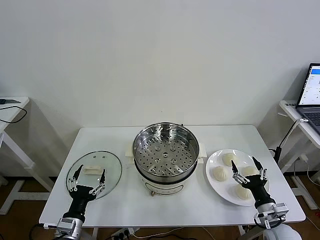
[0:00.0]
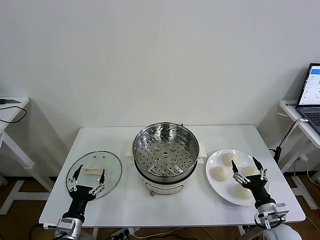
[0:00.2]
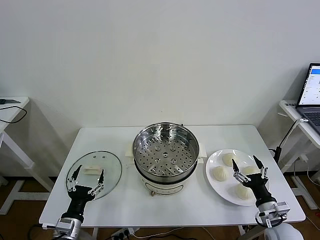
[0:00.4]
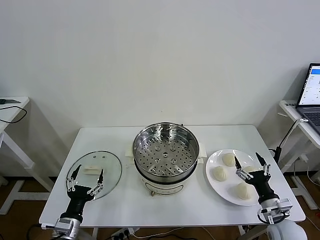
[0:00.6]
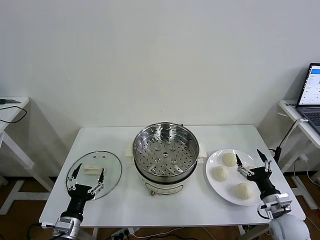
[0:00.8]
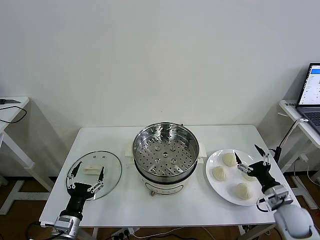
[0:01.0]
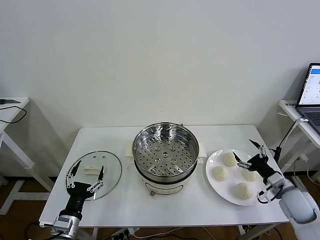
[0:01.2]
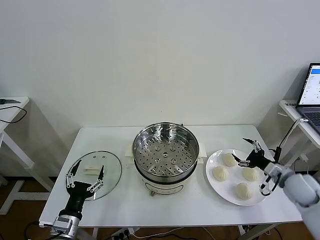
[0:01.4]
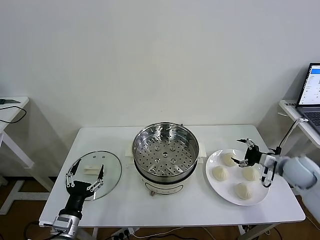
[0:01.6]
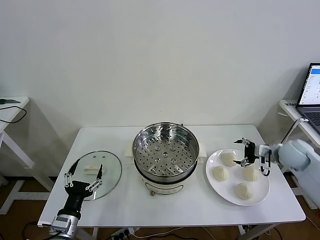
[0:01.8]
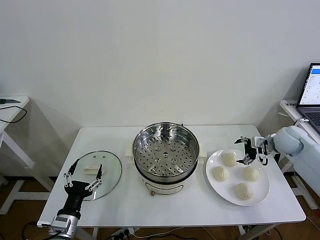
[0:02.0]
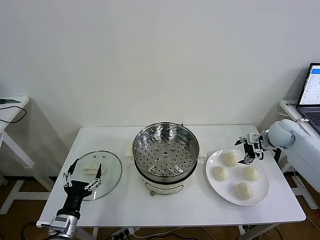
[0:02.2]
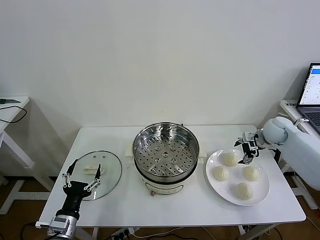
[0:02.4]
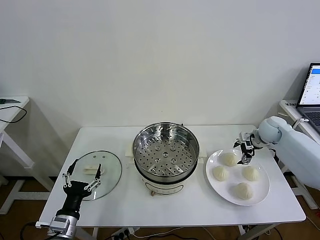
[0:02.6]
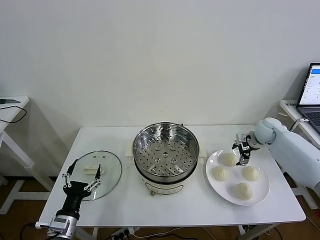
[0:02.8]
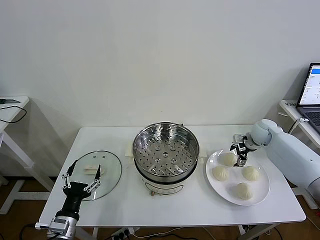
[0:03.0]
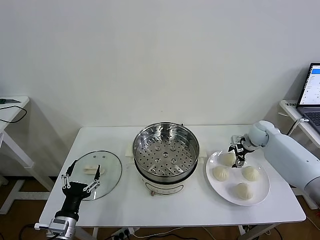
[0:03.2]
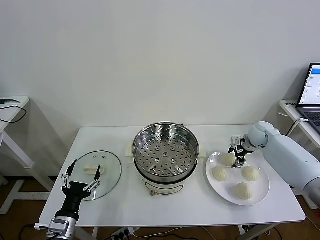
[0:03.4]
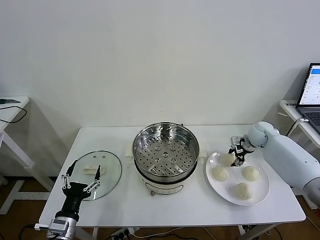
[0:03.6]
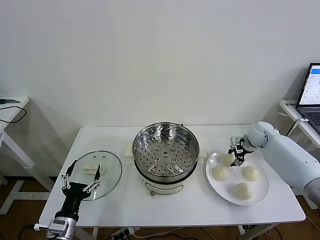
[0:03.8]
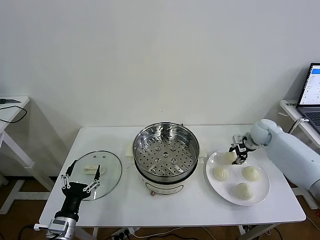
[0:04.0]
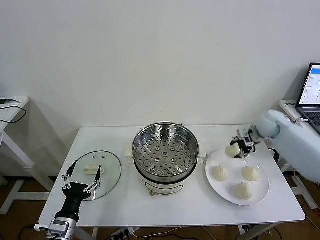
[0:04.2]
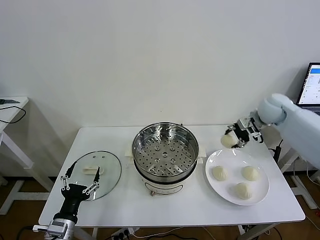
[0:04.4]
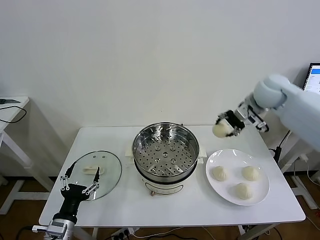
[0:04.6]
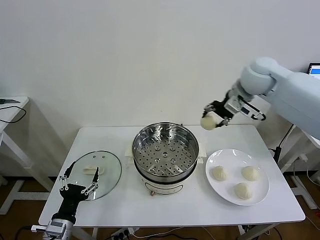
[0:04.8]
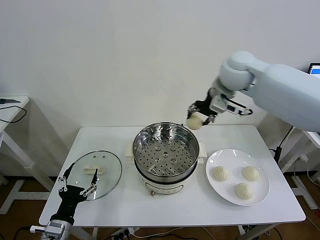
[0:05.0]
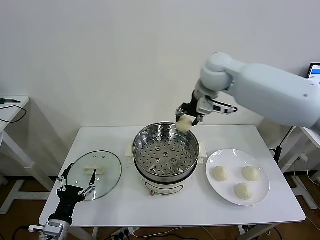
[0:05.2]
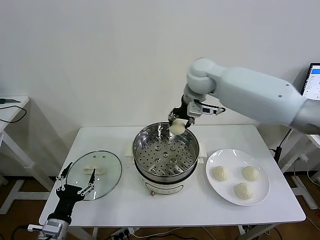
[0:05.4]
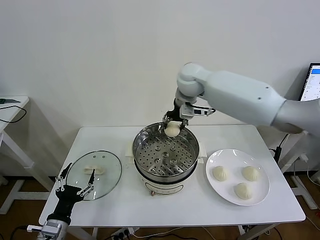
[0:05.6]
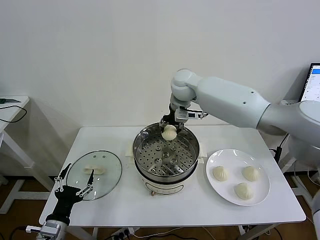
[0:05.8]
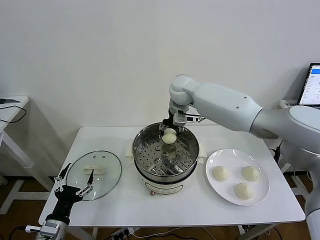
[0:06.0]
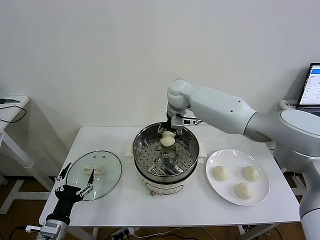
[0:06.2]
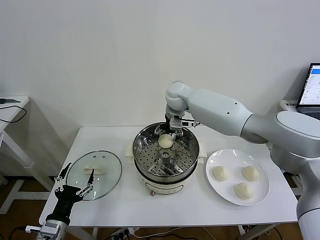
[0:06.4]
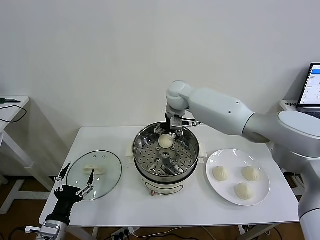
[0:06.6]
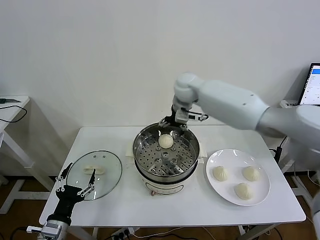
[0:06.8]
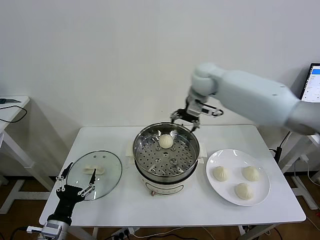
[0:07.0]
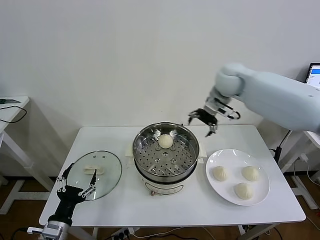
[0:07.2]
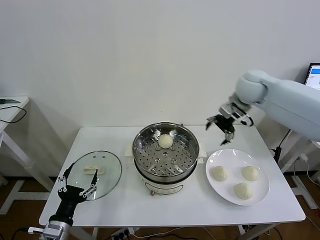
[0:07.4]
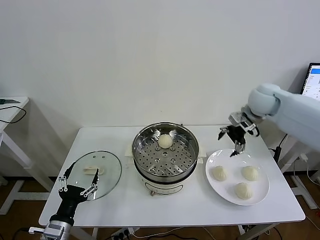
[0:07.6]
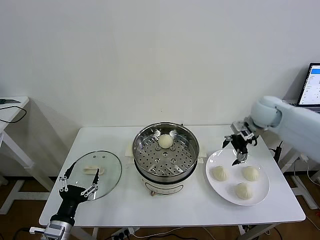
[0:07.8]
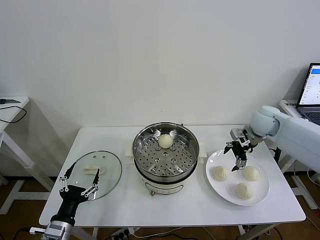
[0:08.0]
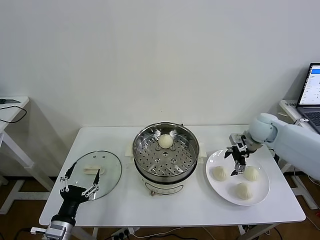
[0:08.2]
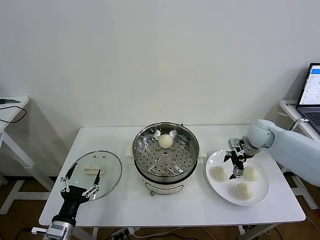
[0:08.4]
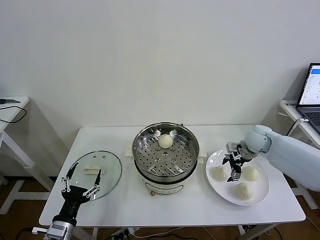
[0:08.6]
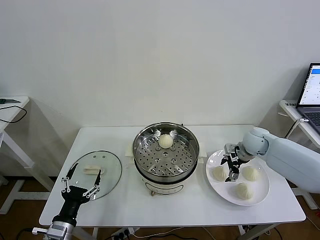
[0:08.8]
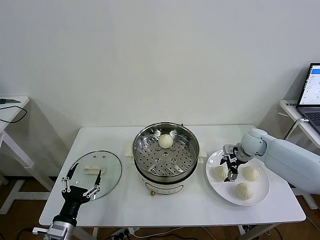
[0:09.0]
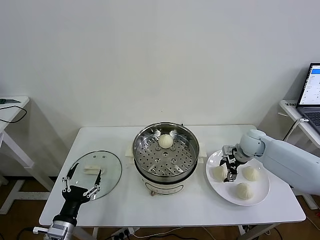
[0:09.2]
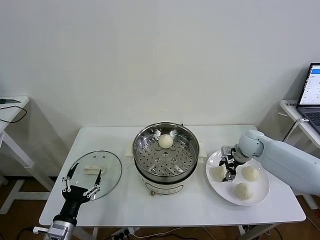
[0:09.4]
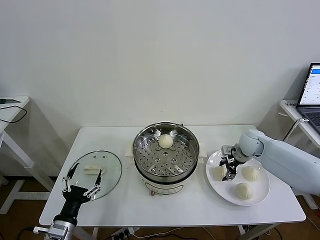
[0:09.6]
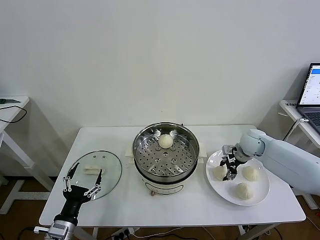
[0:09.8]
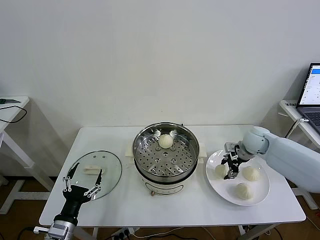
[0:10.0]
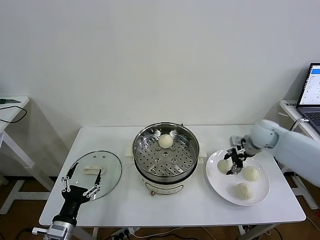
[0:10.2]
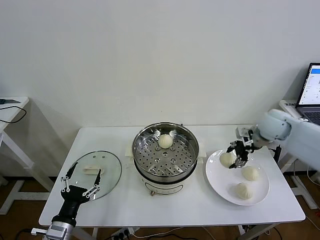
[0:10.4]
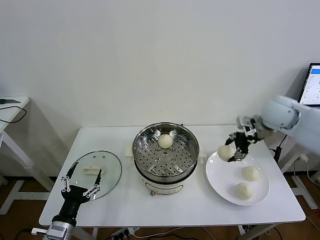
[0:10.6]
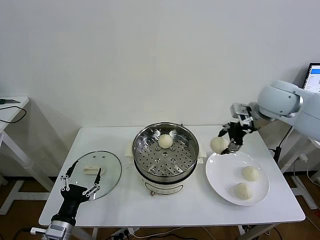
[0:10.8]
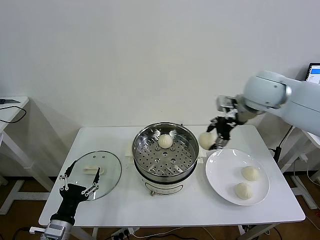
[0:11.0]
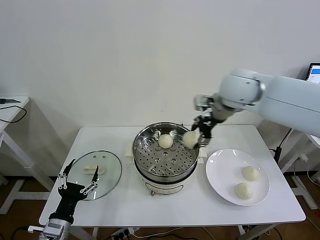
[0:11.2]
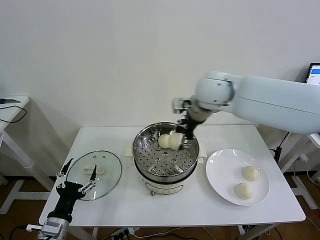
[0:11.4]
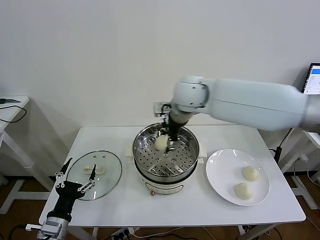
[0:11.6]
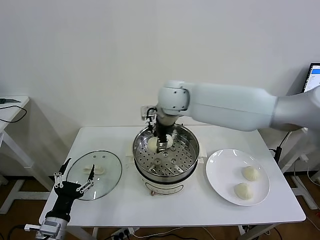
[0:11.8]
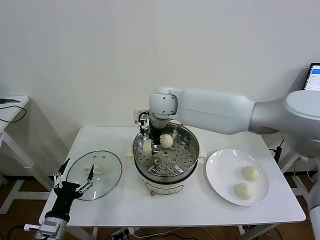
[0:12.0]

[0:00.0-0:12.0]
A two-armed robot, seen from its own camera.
Task of the whole recording: take steamed baozi put them in steamer then cover it.
Step, 0:00.0 to 0:03.6: Grasp the baozi in the plate with right gripper.
Step, 0:03.8 to 0:06.4: Place the baozi on the steamer with right gripper.
Step, 0:06.6 to 0:09.6: Grasp the baozi in the plate with right gripper.
0:01.6 to 0:03.0: The right gripper moves forward, about 15 cm.
0:03.0 to 0:04.4: The right gripper moves upward, about 20 cm, and closes its fingers.
0:04.4 to 0:06.0: The right gripper goes roughly 30 cm to the left.
0:06.0 to 0:07.6: The right gripper shifts approximately 25 cm to the right, and opens up.
0:07.6 to 0:09.0: The right gripper shifts some 15 cm downward.
0:09.0 to 0:10.4: The right gripper moves upward, approximately 15 cm, and closes its fingers.
0:10.4 to 0:12.0: The right gripper shifts about 35 cm to the left.

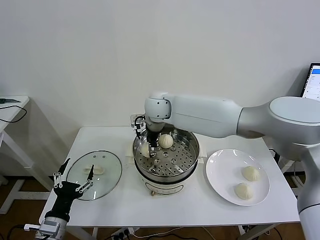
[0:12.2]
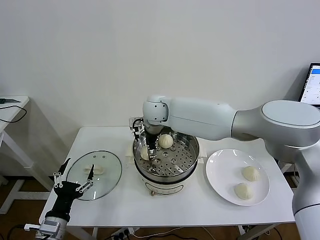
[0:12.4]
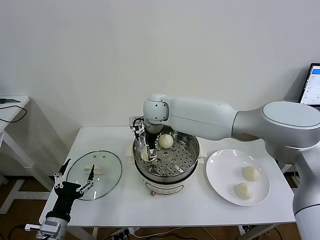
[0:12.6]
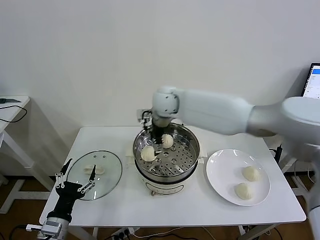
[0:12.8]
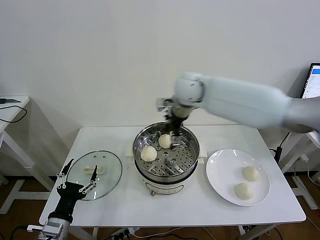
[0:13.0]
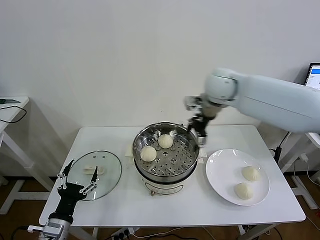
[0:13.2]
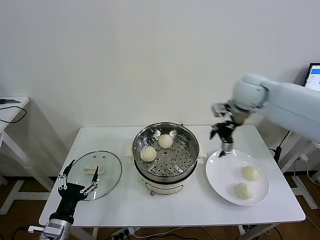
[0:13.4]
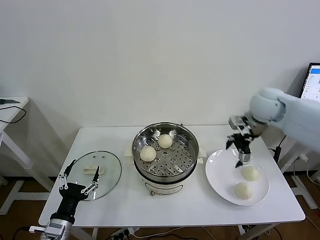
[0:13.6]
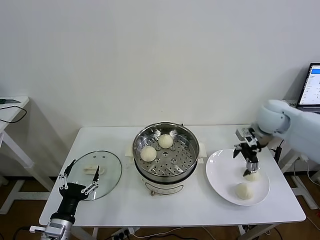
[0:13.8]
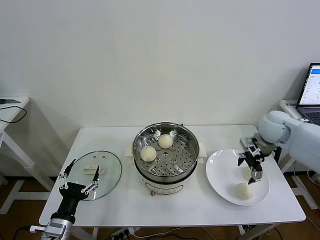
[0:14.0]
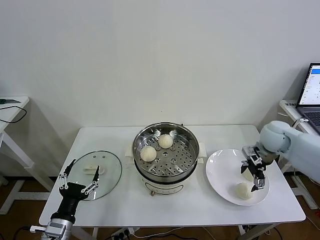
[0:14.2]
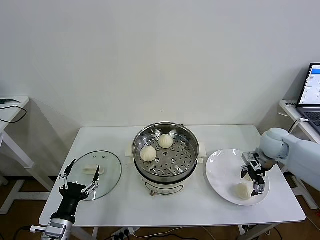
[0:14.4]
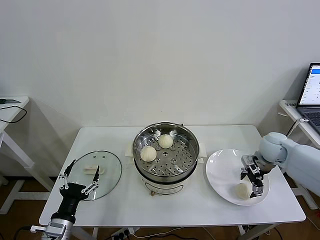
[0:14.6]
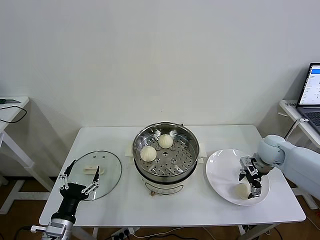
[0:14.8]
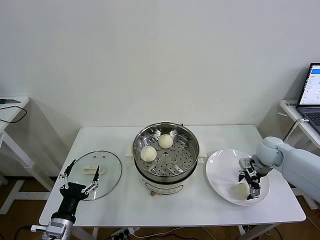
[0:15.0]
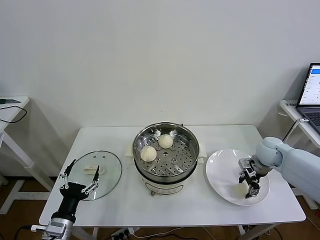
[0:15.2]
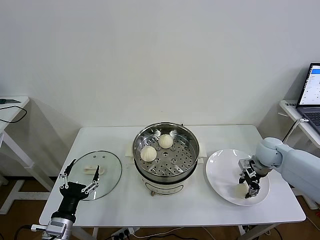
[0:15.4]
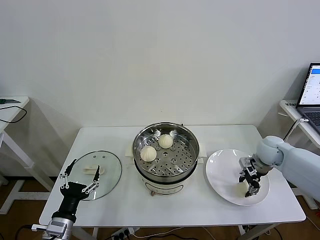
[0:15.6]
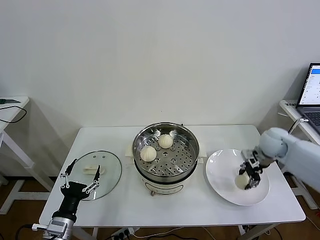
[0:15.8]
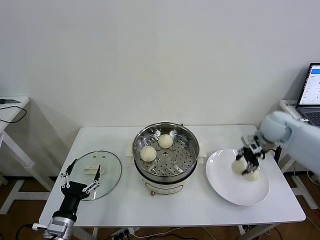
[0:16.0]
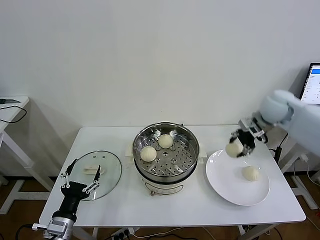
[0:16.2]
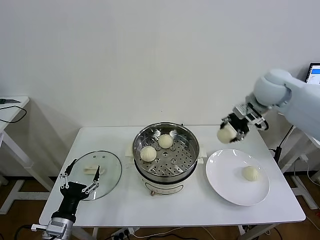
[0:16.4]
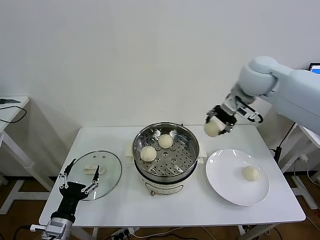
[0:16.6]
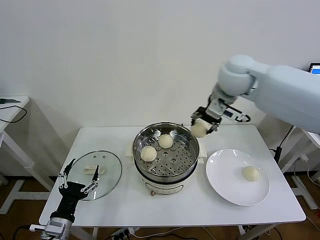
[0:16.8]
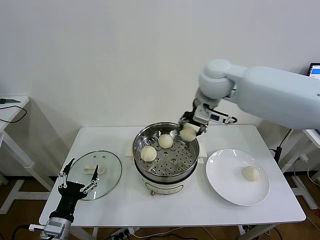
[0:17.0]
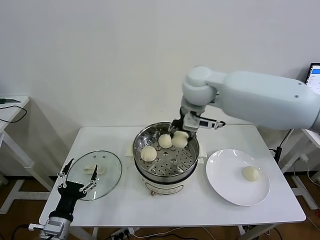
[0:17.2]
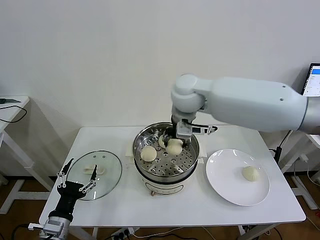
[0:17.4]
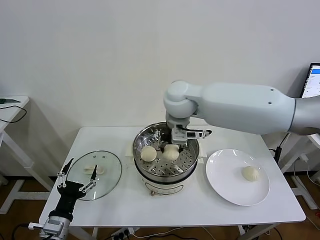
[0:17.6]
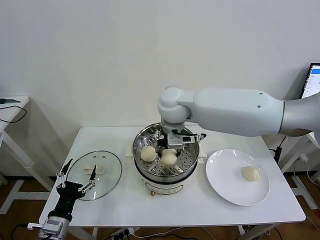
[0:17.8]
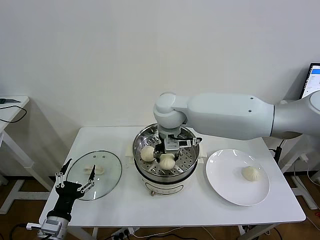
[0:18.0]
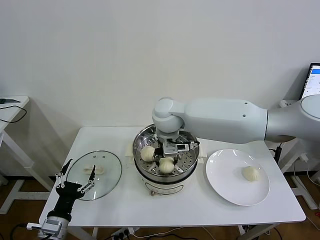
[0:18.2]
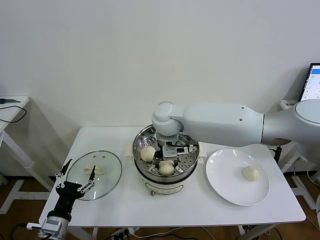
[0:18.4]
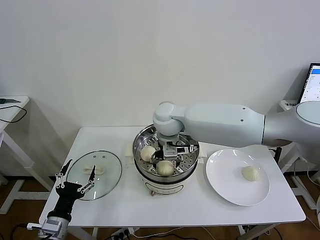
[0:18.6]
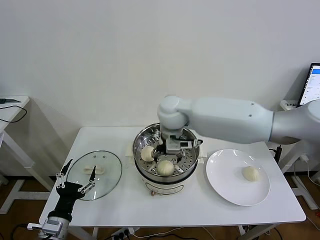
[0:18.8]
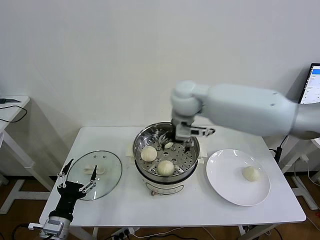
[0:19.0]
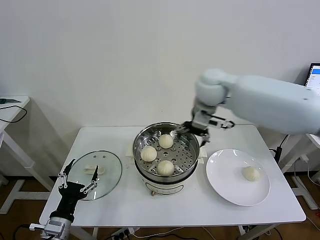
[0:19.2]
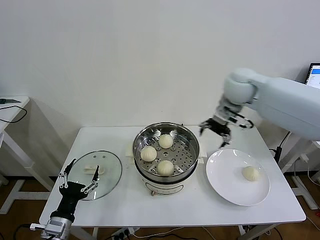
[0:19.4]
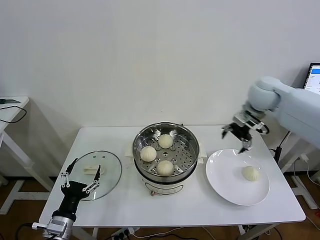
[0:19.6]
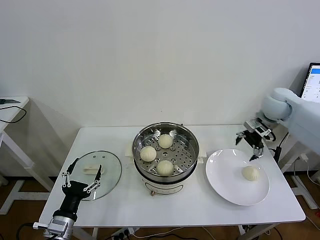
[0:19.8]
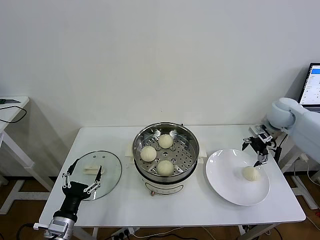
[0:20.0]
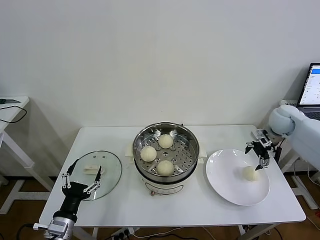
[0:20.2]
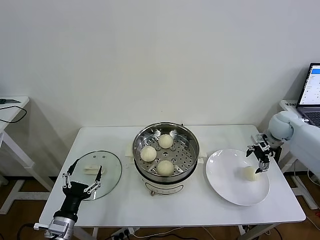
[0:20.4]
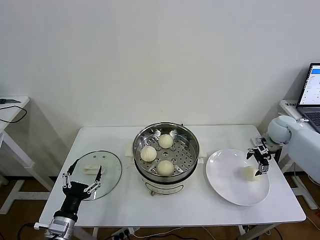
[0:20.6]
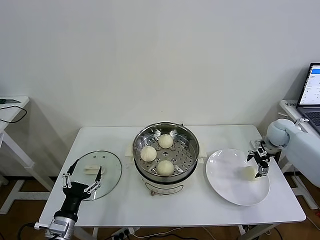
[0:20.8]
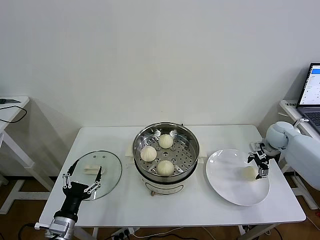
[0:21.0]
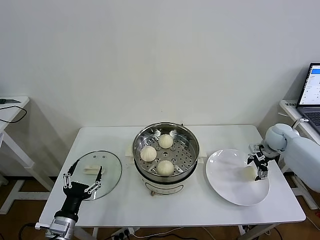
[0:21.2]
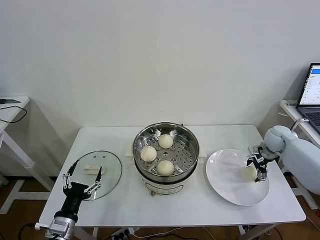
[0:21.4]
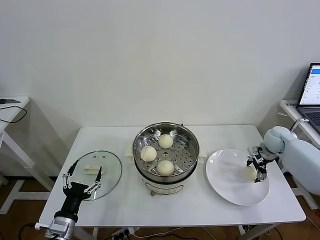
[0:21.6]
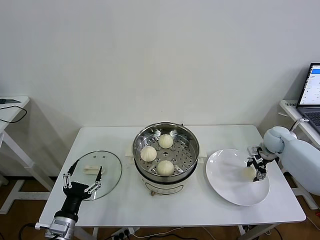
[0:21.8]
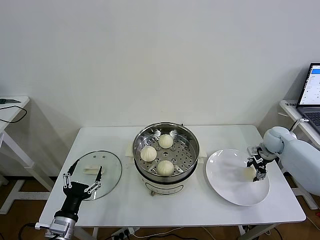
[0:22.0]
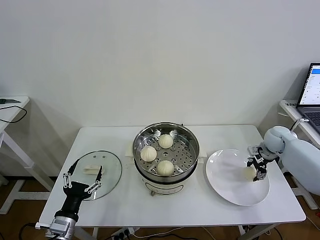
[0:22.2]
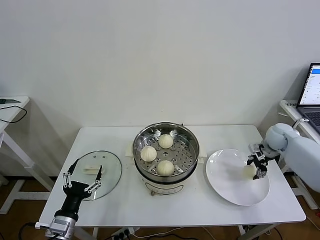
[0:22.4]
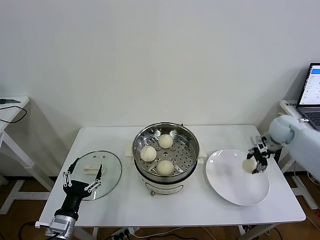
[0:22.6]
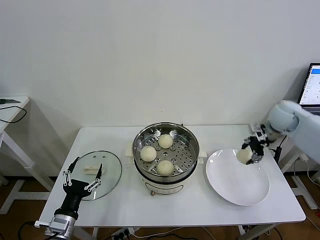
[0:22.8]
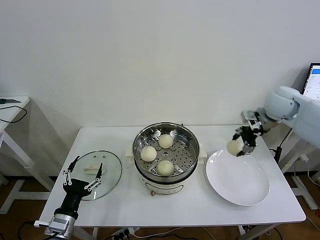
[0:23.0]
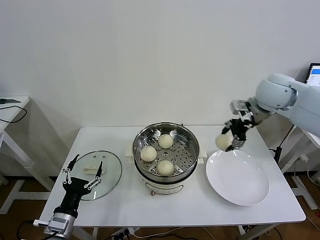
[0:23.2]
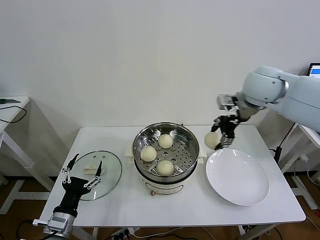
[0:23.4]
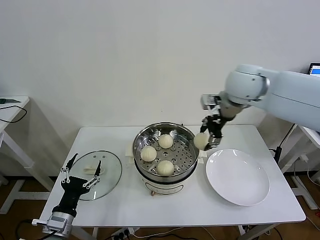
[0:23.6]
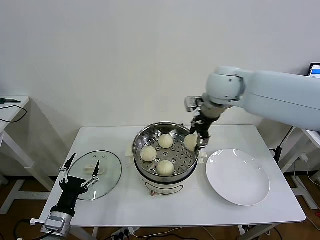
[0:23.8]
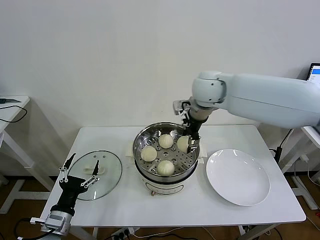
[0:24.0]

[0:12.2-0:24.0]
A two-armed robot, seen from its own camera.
Task of the whole recording: take steamed baozi put them in steamer then cover it.
Step, 0:12.8 to 0:15.4: Grasp the baozi in the plate with right gripper.
Step, 0:15.6 to 0:18.6: Place the baozi on the steamer with right gripper.
Step, 0:18.8 to 0:22.0: Grasp the baozi in the plate with right gripper.
0:12.2 to 0:13.6: The right gripper heads to the right, covering approximately 35 cm, and opens up.
0:13.6 to 0:15.2: The right gripper travels downward by roughly 15 cm, and closes up.
0:15.2 to 0:16.6: The right gripper goes roughly 30 cm upward and to the left.
0:16.6 to 0:18.2: The right gripper moves to the left and downward, about 25 cm.
0:18.2 to 0:19.6: The right gripper shifts approximately 30 cm to the right, and opens its fingers.
0:19.6 to 0:21.0: The right gripper goes about 20 cm downward and to the right.
0:21.0 to 0:22.6: The right gripper shifts by some 5 cm, and closes its fingers.
0:22.6 to 0:24.0: The right gripper goes roughly 35 cm to the left and upward.
